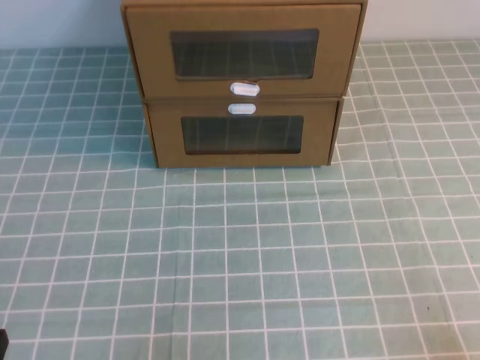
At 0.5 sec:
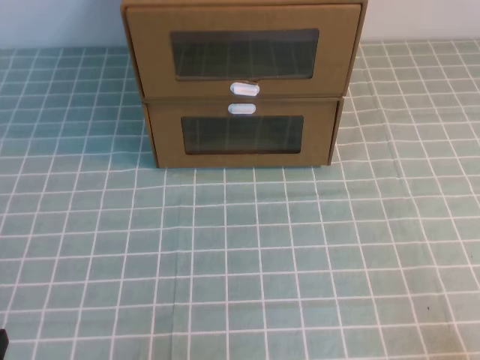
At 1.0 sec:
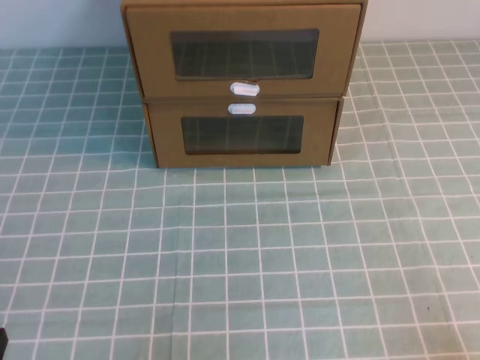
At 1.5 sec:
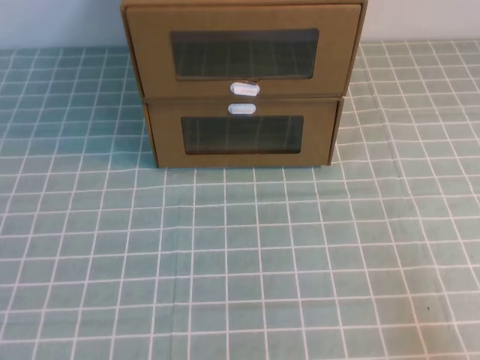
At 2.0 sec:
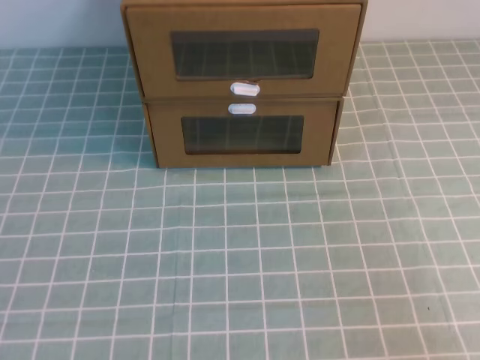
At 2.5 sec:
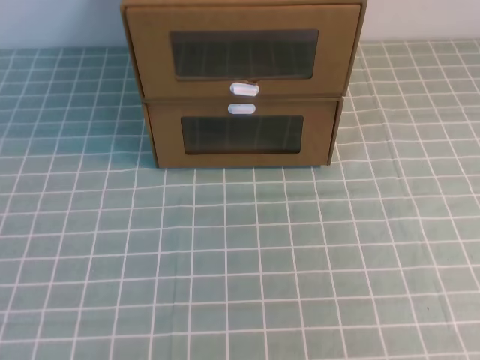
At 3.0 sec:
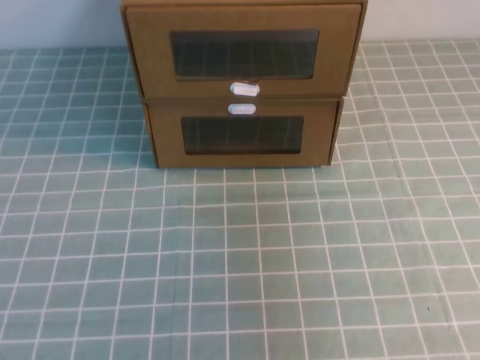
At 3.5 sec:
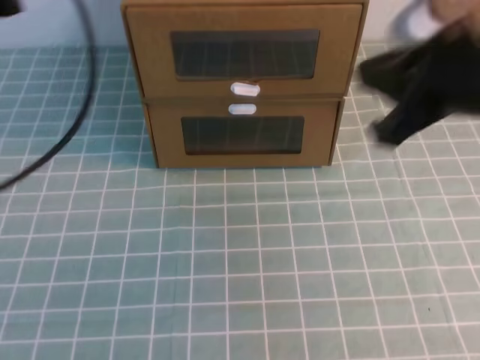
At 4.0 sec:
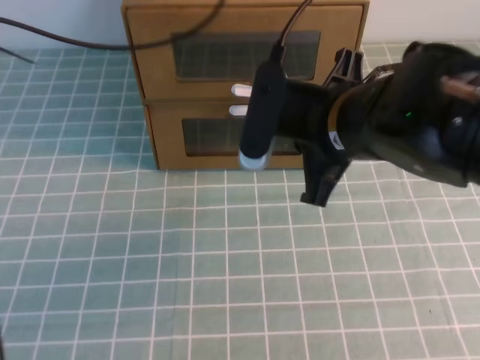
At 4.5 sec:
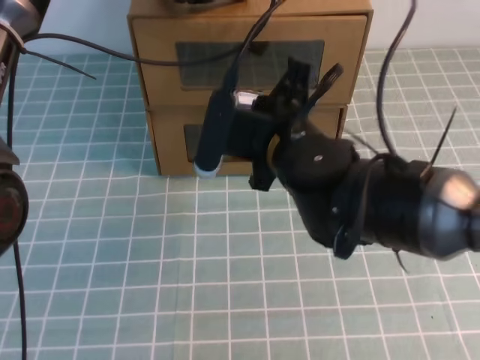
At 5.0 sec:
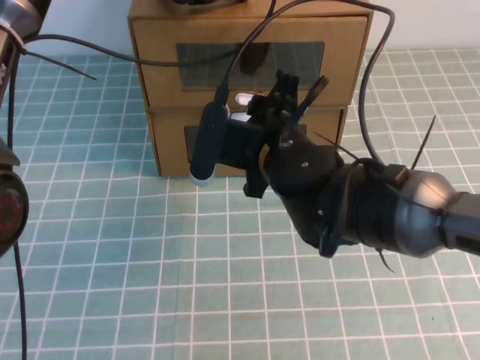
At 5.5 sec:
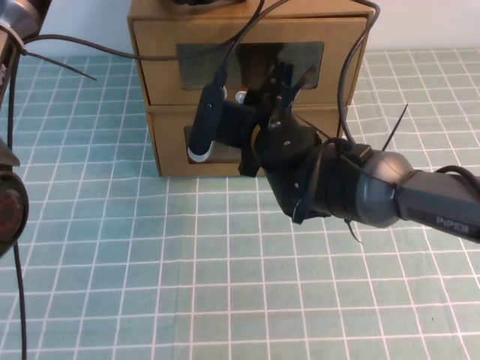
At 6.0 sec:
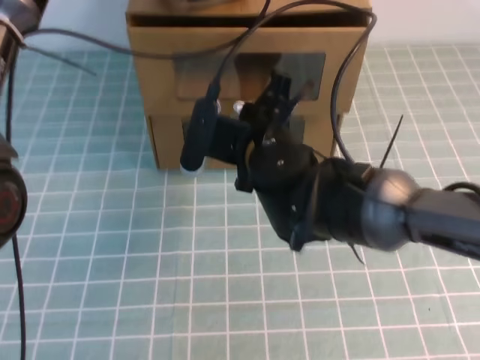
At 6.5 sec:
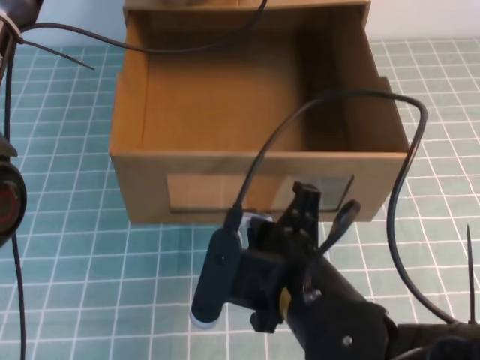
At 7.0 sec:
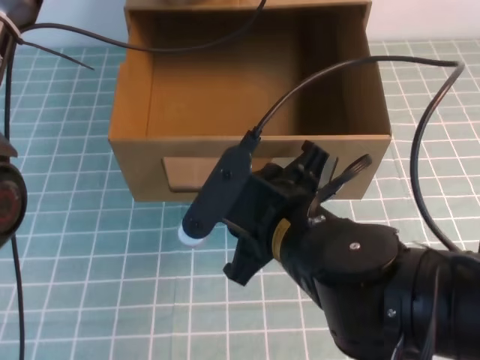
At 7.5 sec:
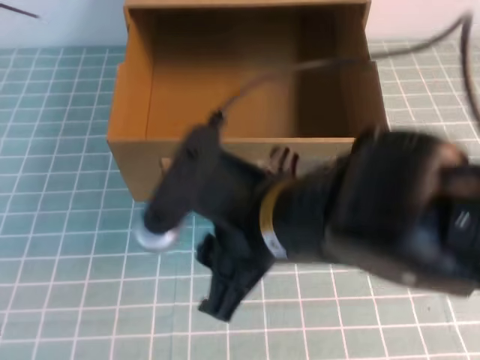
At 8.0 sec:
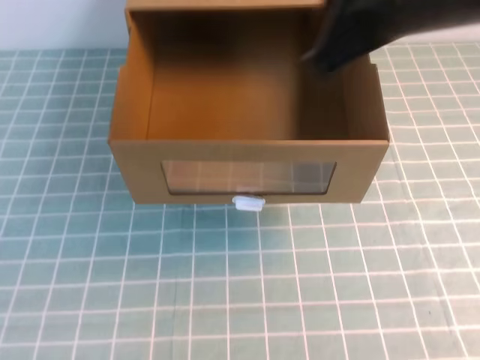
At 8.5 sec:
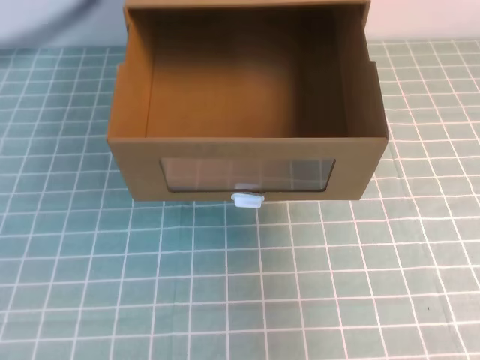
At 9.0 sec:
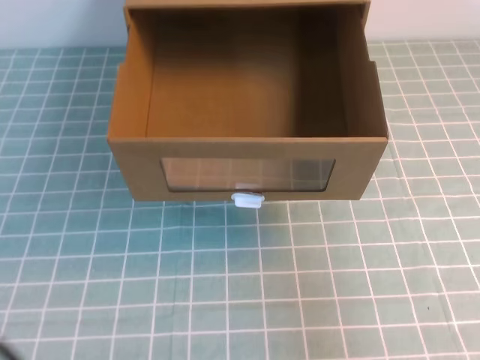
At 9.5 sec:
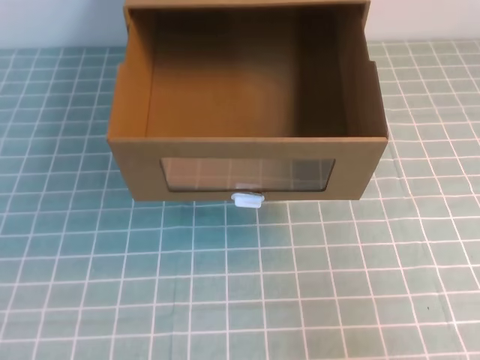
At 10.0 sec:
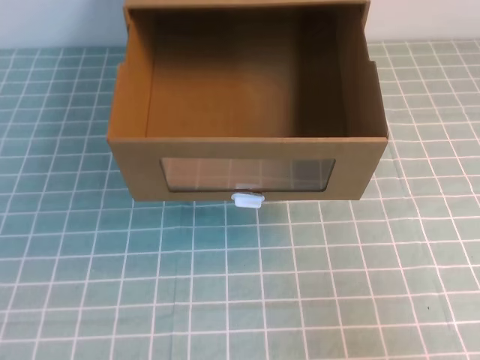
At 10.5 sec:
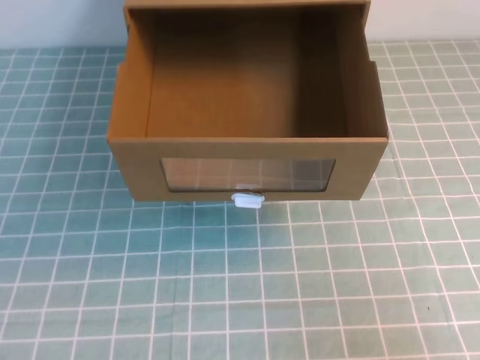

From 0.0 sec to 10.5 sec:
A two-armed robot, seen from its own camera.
Task of the whole recording: open the shoebox on the cyan tablecloth.
From 2.0 sec to 4.0 sec: The left gripper is displaced forward by approximately 40 cm. The right gripper shifts roughly 35 cm forward and to the left.
From 4.0 sec to 6.5 sec: The left gripper shifts by some 10 cm, while the right gripper travels downward, backward and to the left by about 10 cm, and opens and closes again.
From 6.5 sec to 8.5 sec: The left gripper heads backward and upward, covering roughly 30 cm; the right gripper moves to the right and upward, approximately 30 cm, and opens, then closes once more.
From 8.5 sec to 10.5 sec: The right gripper shifts roughly 30 cm backward and downward, while the left gripper heads downward and backward, covering approximately 35 cm.

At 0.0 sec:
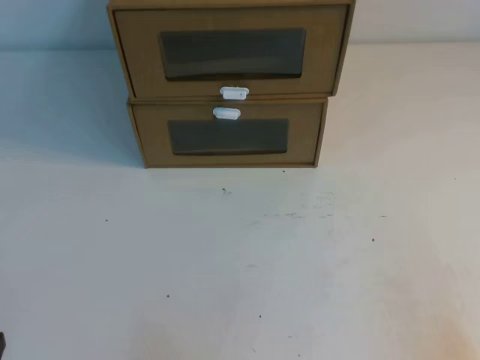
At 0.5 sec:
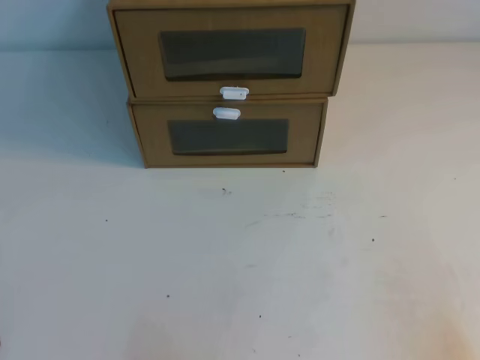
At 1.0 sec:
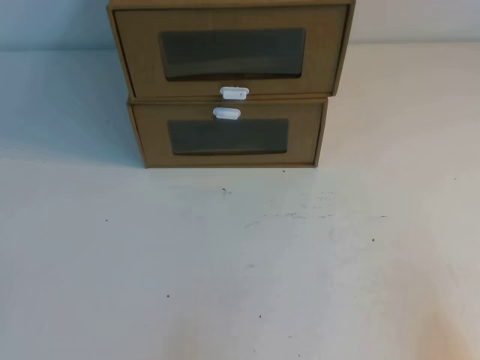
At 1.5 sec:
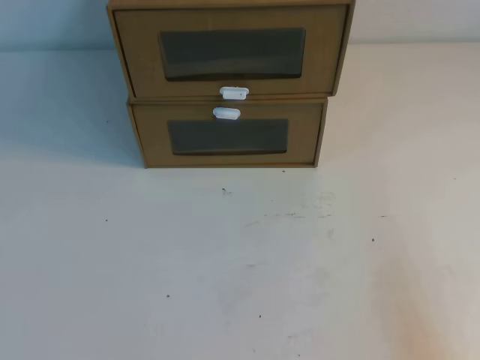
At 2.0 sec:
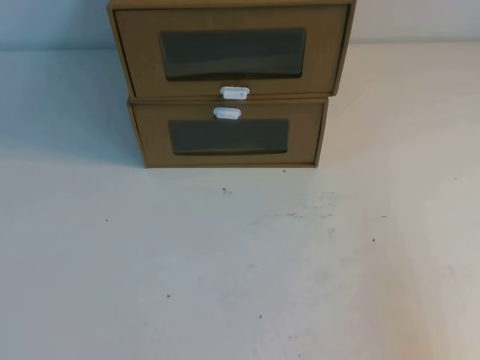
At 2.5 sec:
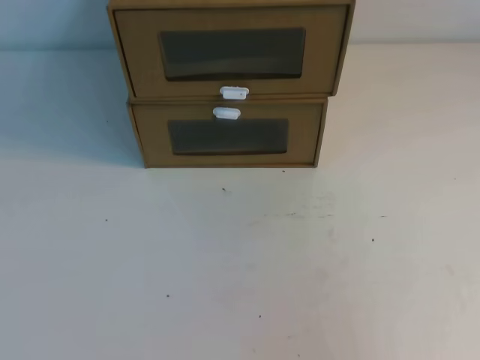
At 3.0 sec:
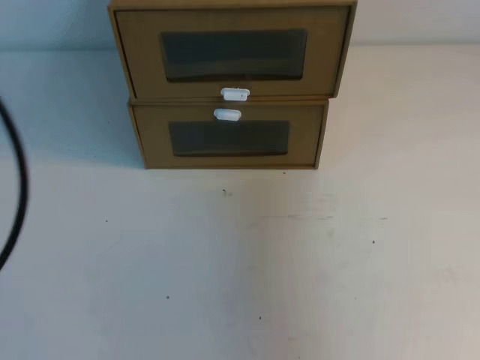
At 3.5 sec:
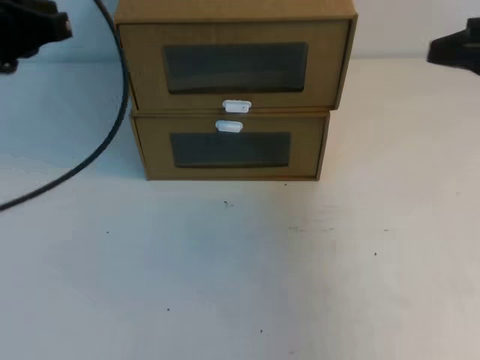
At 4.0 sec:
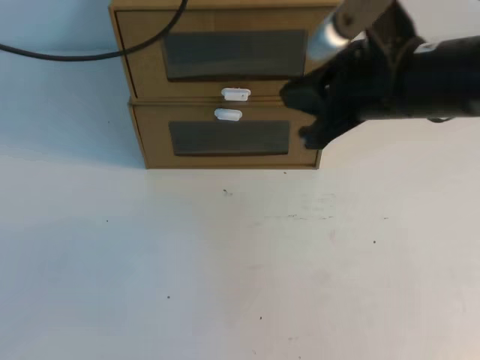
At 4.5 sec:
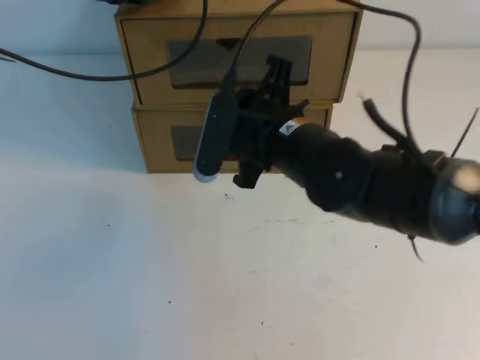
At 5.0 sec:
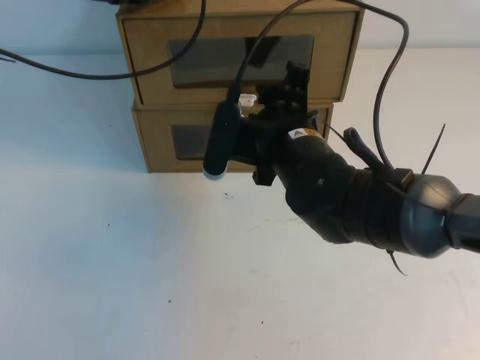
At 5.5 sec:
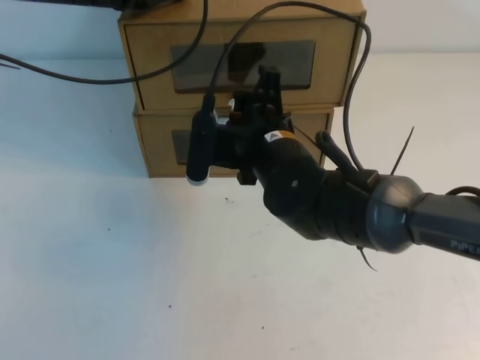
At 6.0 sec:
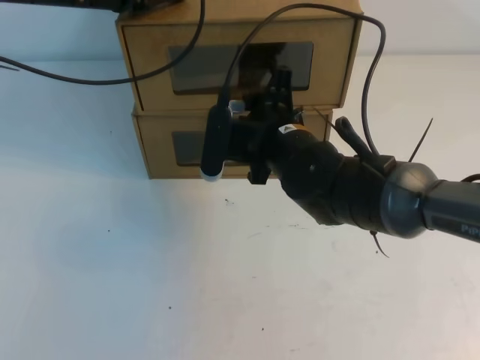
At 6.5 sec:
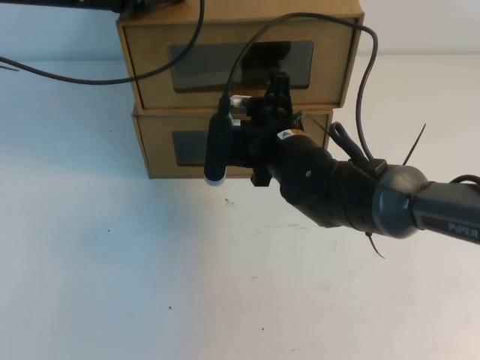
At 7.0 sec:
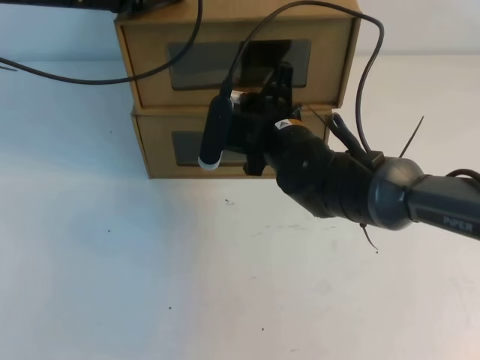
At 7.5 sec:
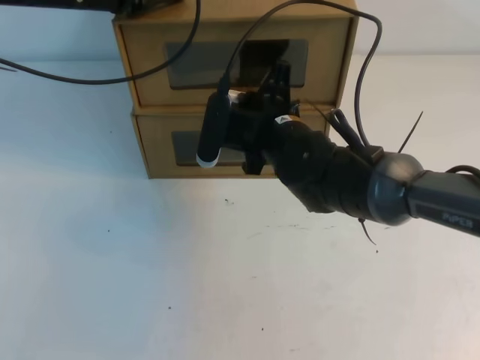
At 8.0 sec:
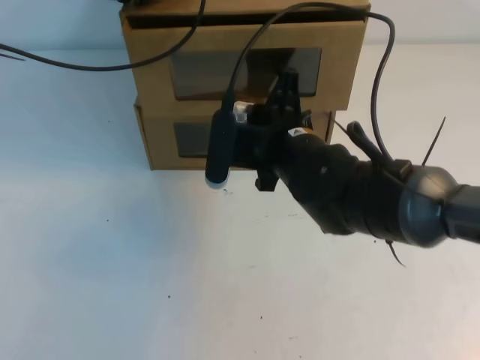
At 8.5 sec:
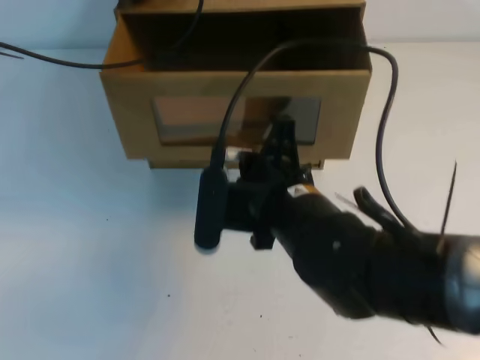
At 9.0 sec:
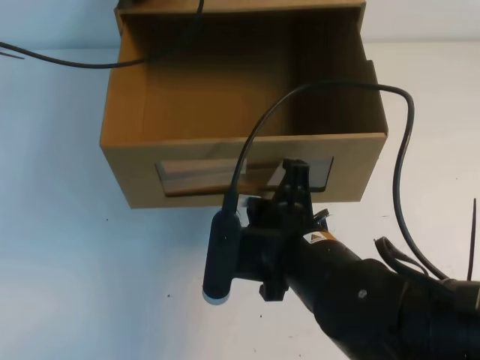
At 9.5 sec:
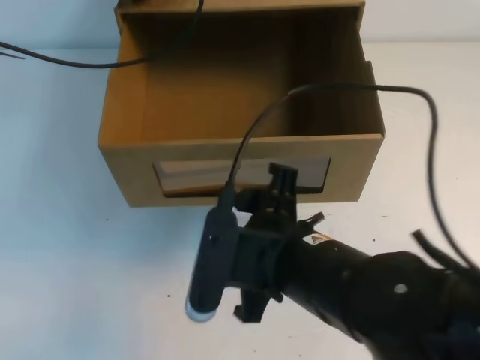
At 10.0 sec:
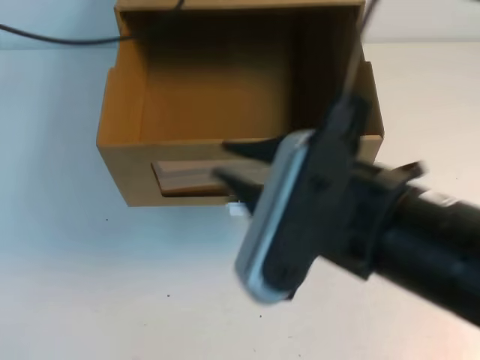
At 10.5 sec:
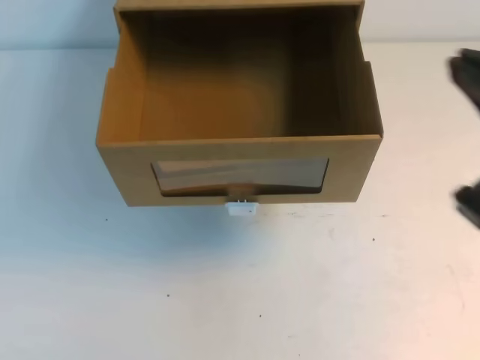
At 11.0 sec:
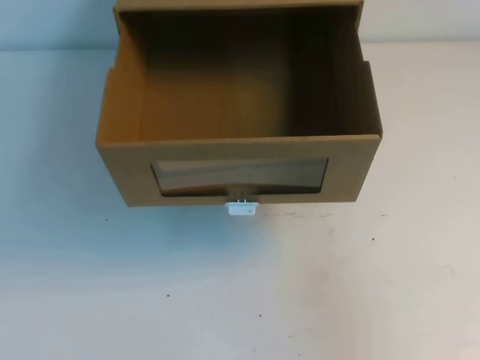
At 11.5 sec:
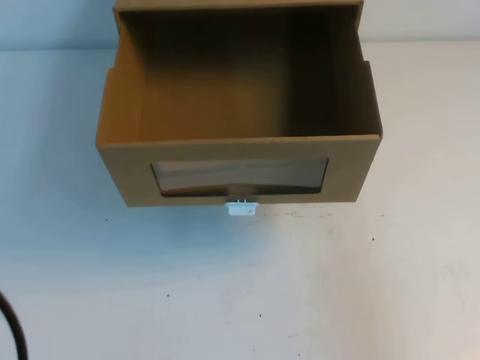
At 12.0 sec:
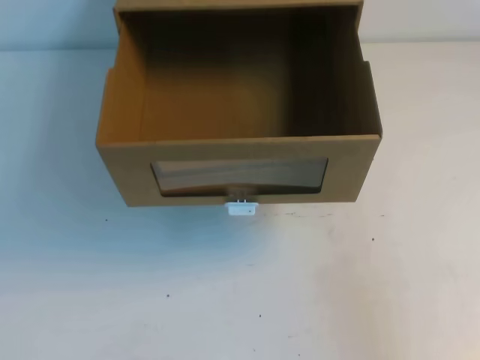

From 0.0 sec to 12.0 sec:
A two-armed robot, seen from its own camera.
Task of the whole recording: open the shoebox on the table.
From 2.0 sec to 4.0 sec: The right gripper travels forward and to the left by roughly 35 cm; the left gripper shifts some 40 cm forward and upward.
From 4.0 sec to 6.0 sec: The right gripper shifts about 15 cm to the left and downward, and opens up. The left gripper heads downward and forward, covering approximately 10 cm.
From 6.0 sec to 8.0 sec: The right gripper closes its fingers.
From 8.0 sec to 10.0 sec: The left gripper heads upward, covering roughly 5 cm; the right gripper goes roughly 20 cm backward and upward, and opens.
From 10.0 sec to 12.0 sec: The right gripper moves to the right, about 25 cm, and closes up, while the left gripper moves backward, roughly 40 cm.
